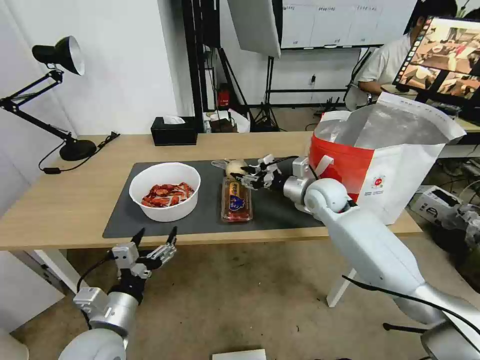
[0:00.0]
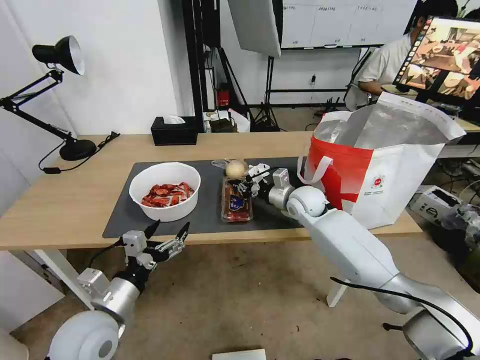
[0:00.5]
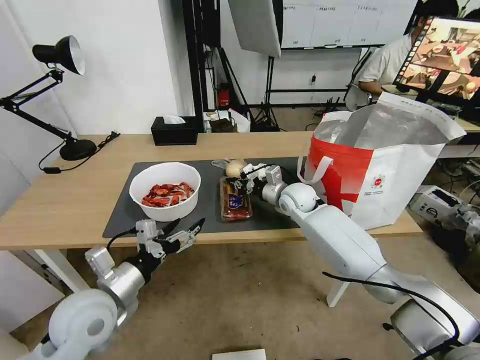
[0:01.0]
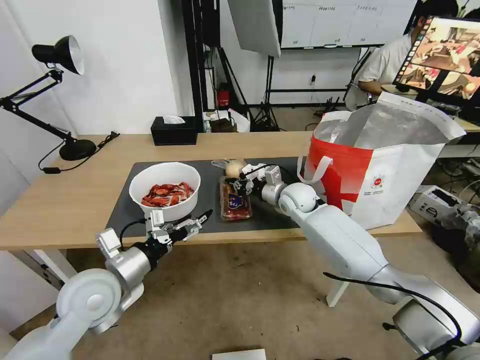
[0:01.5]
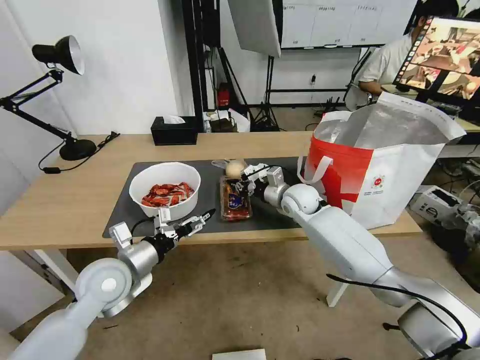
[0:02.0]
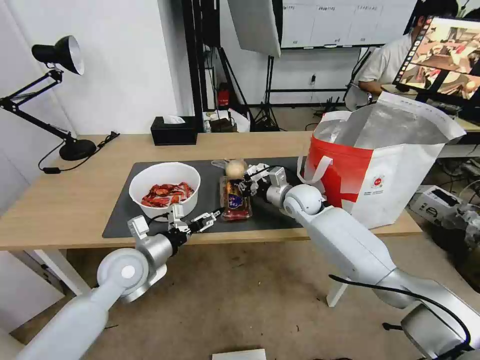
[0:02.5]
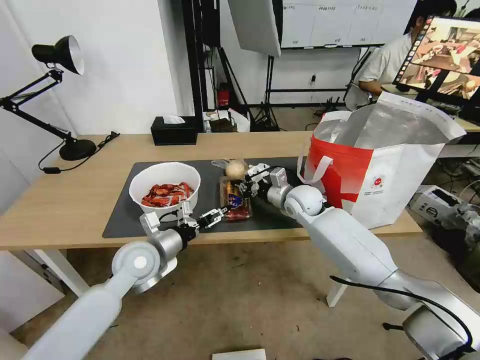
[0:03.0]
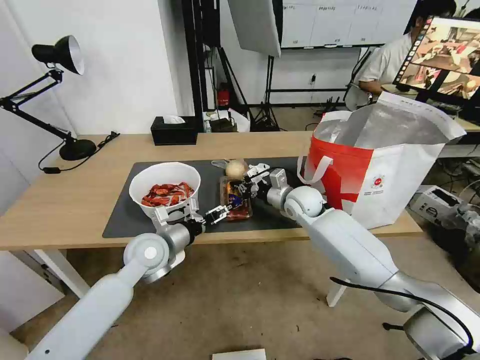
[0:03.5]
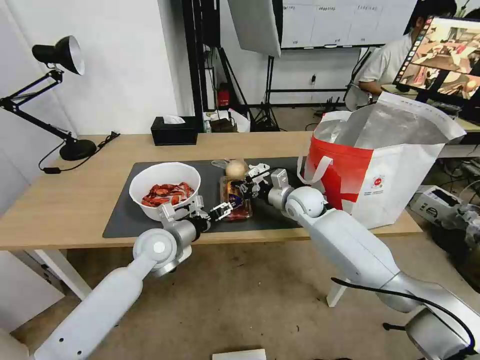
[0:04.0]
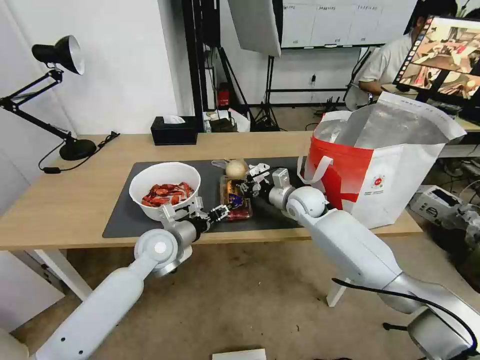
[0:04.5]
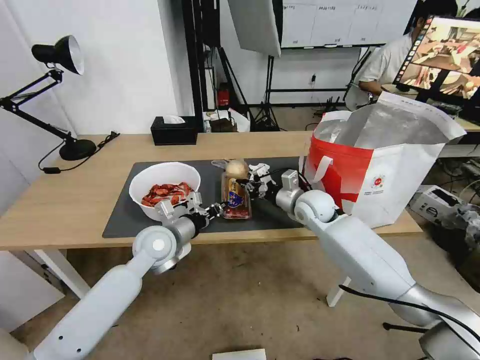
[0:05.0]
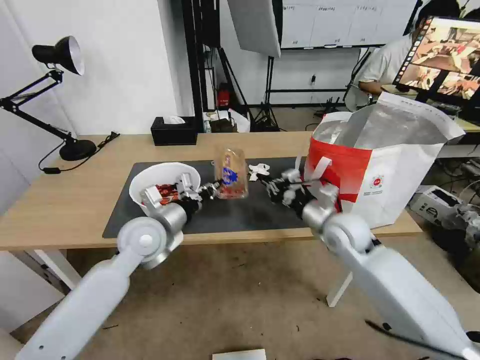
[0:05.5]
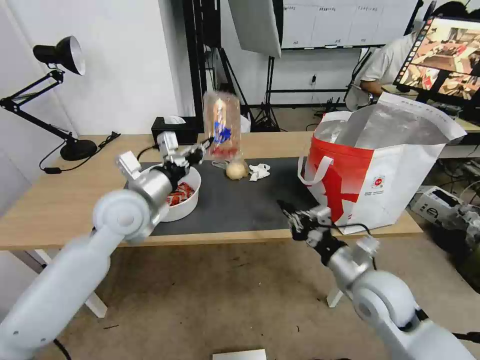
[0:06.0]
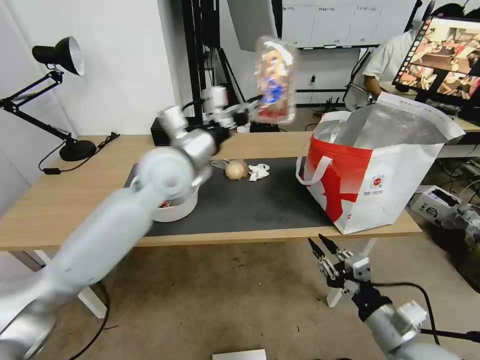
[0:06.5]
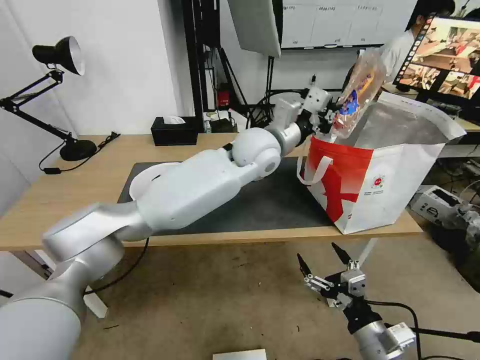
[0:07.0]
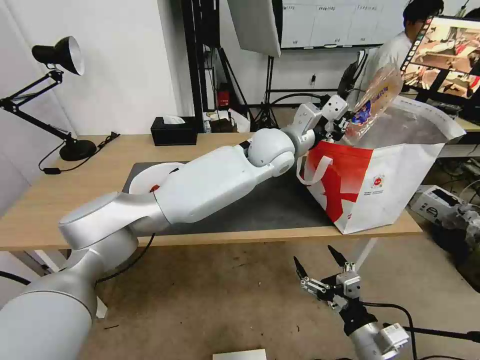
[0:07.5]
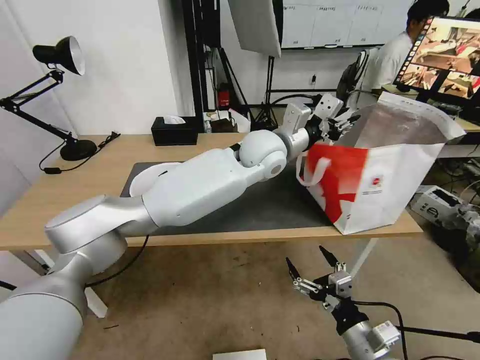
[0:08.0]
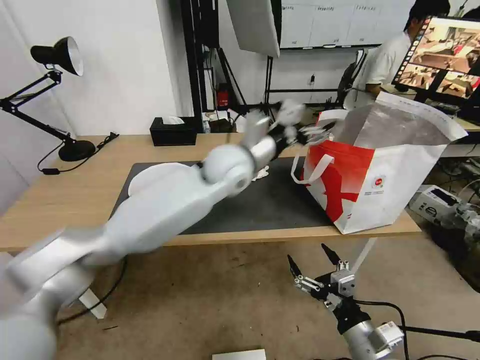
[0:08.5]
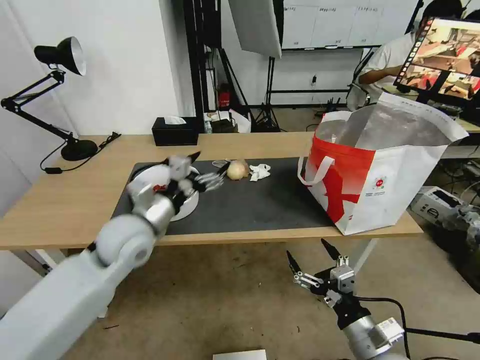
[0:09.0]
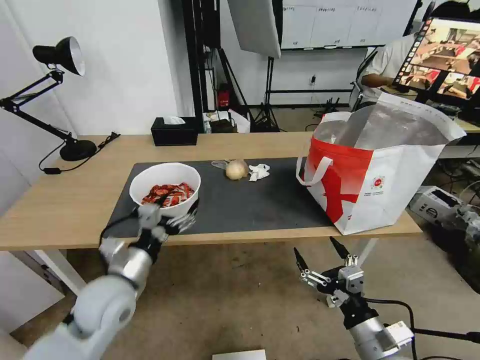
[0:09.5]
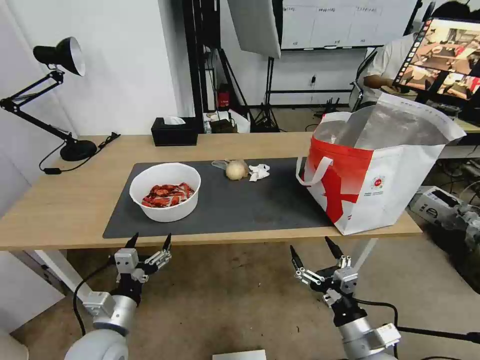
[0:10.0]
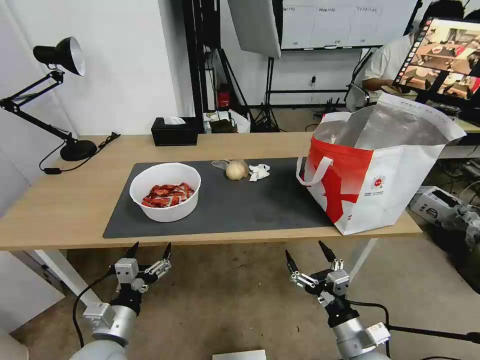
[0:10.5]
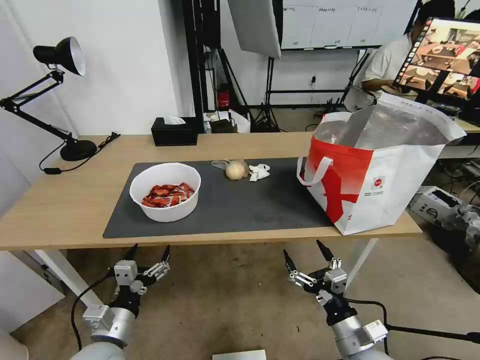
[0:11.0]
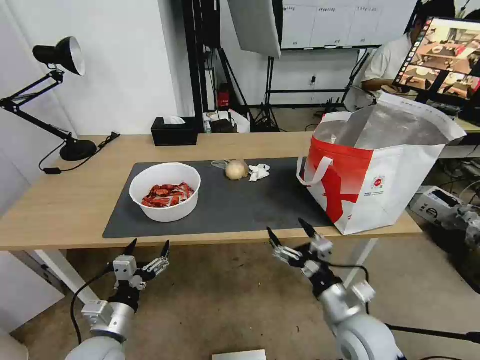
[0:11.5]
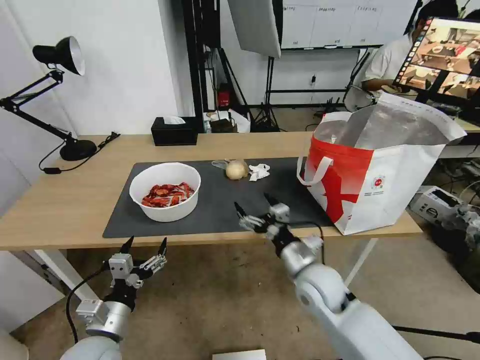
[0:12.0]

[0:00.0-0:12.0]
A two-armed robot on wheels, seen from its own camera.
Task of the whole recording: Pick up the trash from the table and place it into the takeout bag.
0:00.0 to 0:02.0: The right gripper moves roughly 10 cm, and closes its fingers. The left gripper is displaced forward by some 10 cm.
0:02.0 to 0:04.0: The left gripper goes approximately 10 cm forward and to the right.
0:04.0 to 0:06.0: The right gripper moves backward, approximately 25 cm. The left gripper shifts some 15 cm upward, and closes up.
0:06.0 to 0:08.0: The left gripper is displaced to the right and forward by about 30 cm, and opens its fingers, while the right gripper is displaced backward and downward by about 15 cm, and opens up.
0:08.0 to 0:10.0: The left gripper goes some 50 cm to the left, backward and downward, and opens its fingers.
0:10.0 to 0:12.0: The right gripper moves forward and to the left, approximately 20 cm.

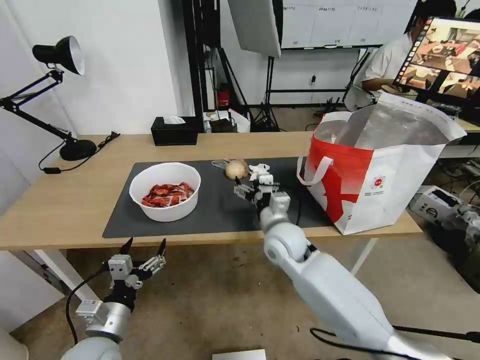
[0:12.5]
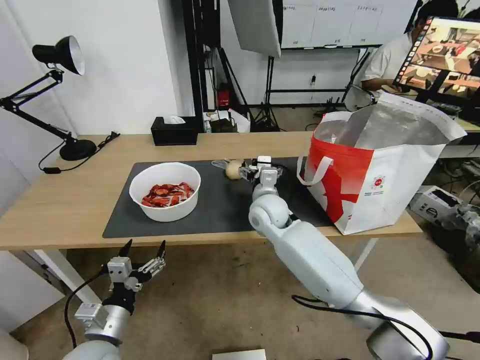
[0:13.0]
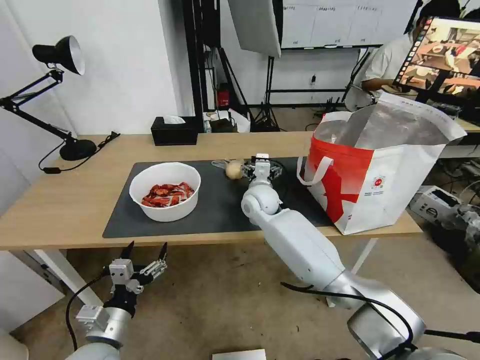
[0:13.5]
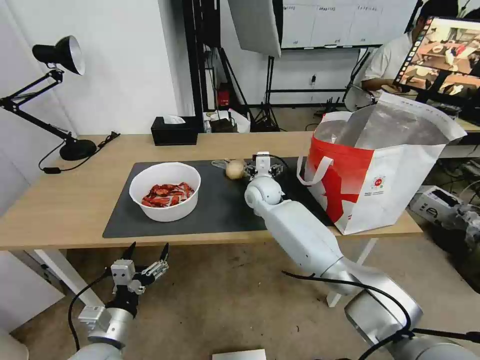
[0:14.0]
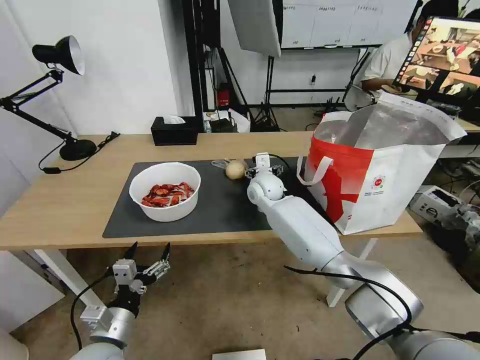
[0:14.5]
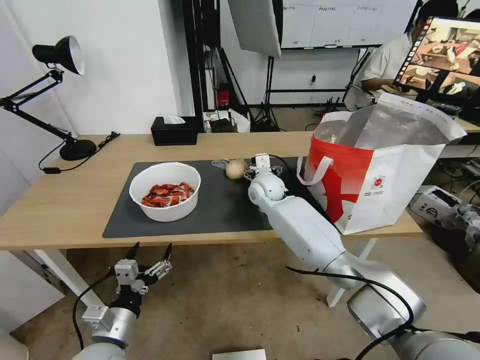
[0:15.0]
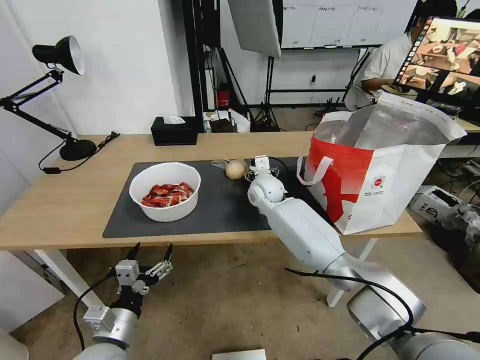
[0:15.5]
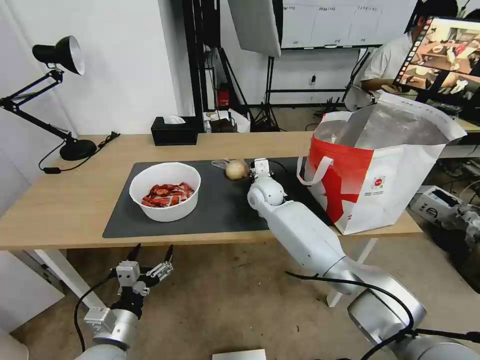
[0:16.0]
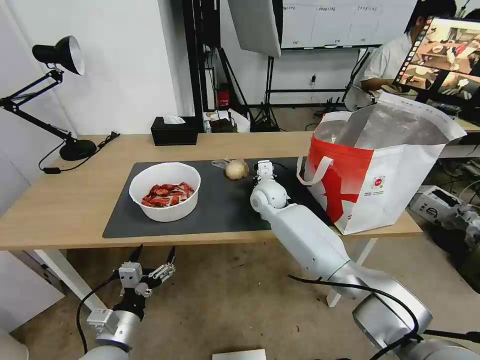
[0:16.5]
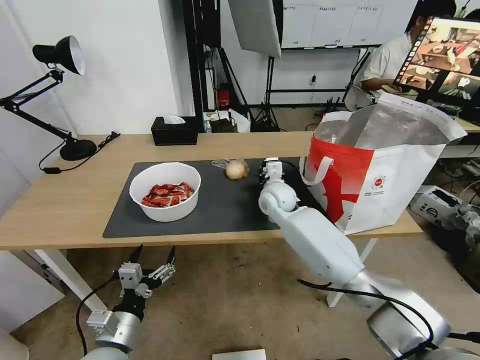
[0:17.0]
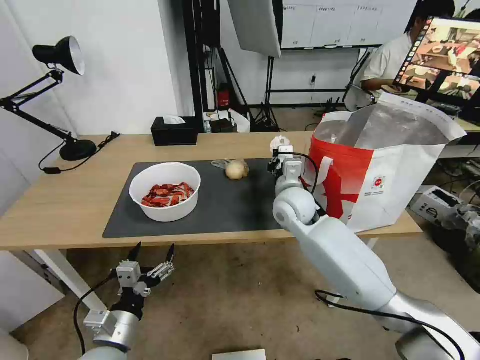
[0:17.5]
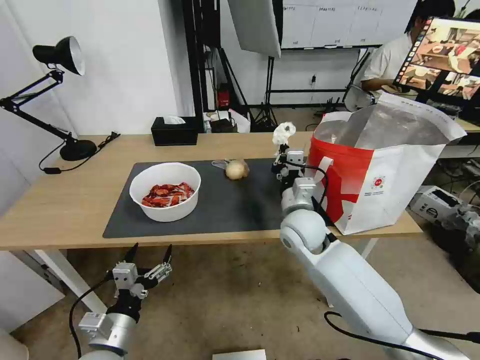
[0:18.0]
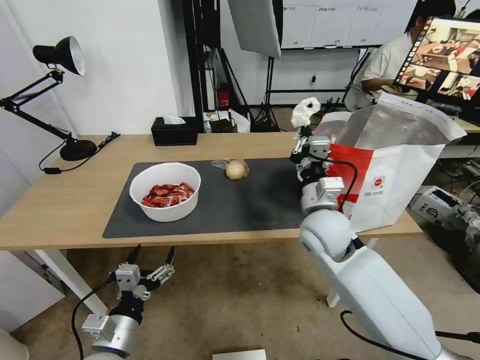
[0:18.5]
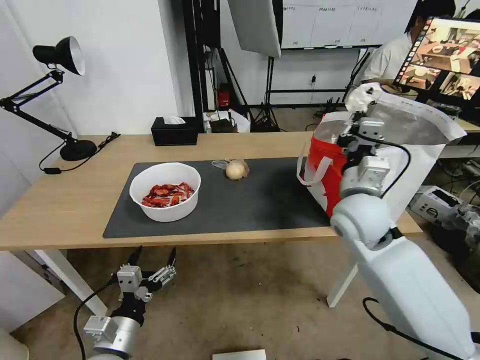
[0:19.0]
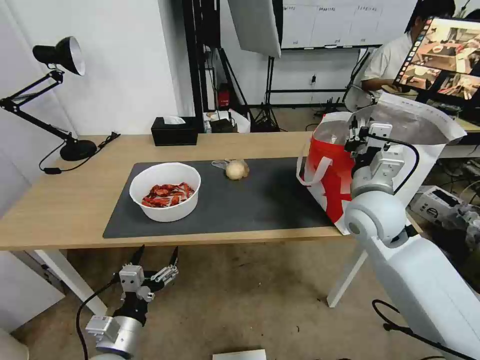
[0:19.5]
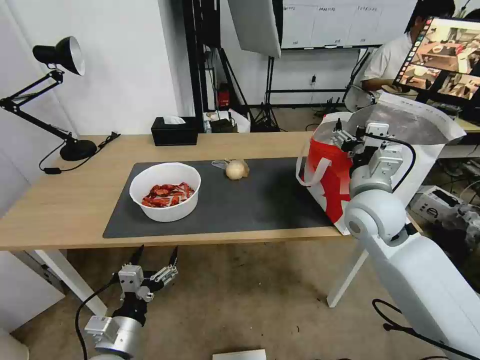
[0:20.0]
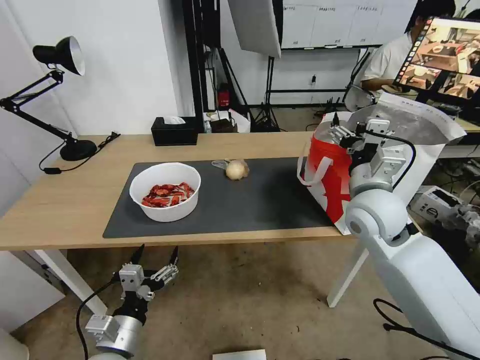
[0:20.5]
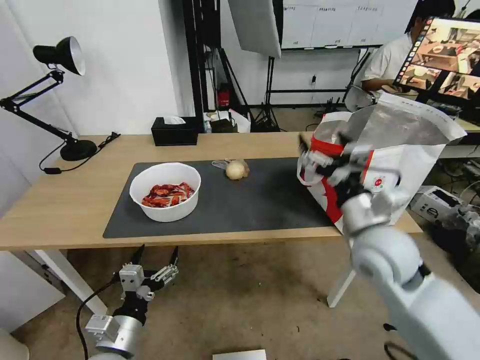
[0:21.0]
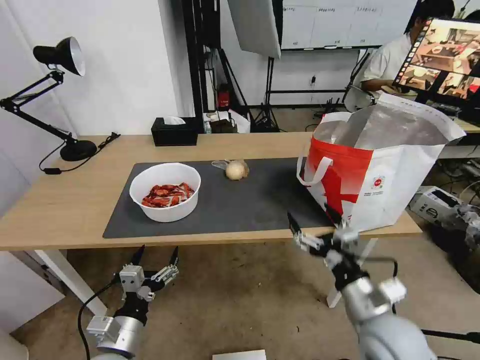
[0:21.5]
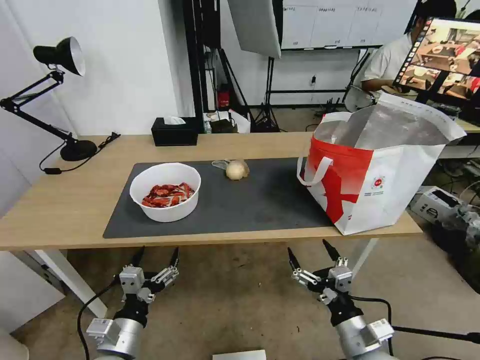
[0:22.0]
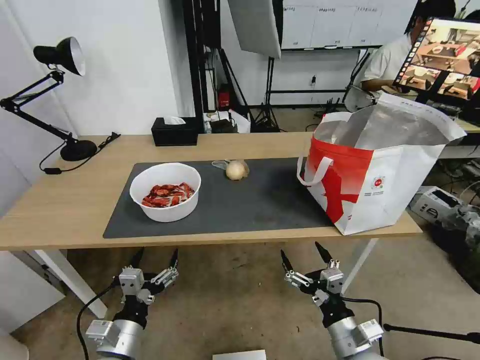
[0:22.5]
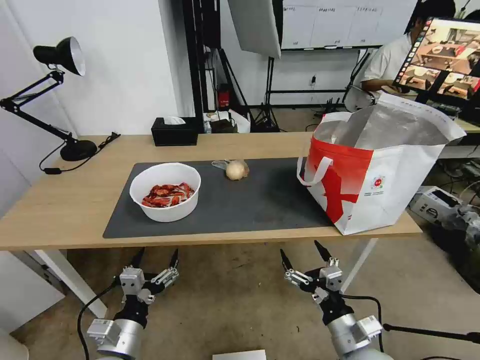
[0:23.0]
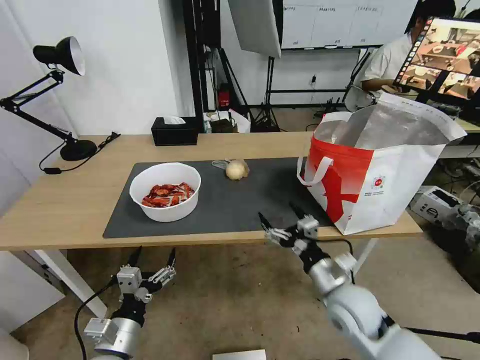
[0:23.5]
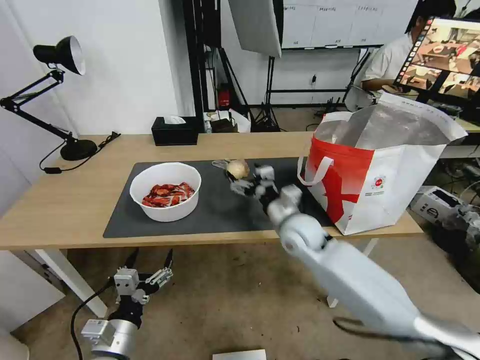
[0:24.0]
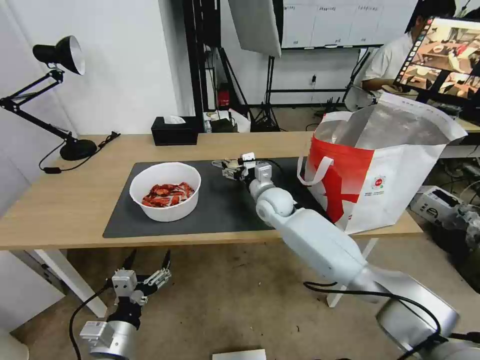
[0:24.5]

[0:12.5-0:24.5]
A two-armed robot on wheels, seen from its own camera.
Task of the whole recording: Pick up the trash from the table and place it into the takeout bag.
0:12.5 to 0:14.5: The right gripper goes some 15 cm forward.
0:14.5 to 0:16.5: The right gripper closes its fingers.
0:16.5 to 0:18.5: The right gripper shifts roughly 20 cm backward, to the right and upward.
0:18.5 to 0:20.5: The right gripper moves to the right and upward, roughly 10 cm, and opens its fingers.
0:20.5 to 0:22.5: The right gripper moves backward and downward, some 30 cm.
0:22.5 to 0:24.5: The right gripper goes some 35 cm forward.

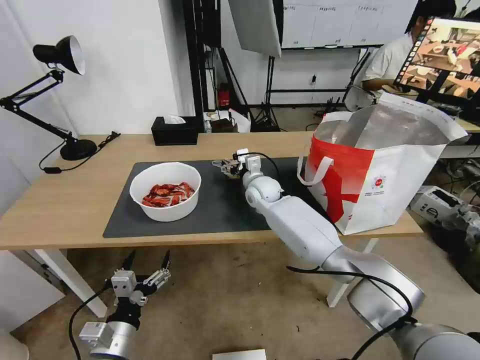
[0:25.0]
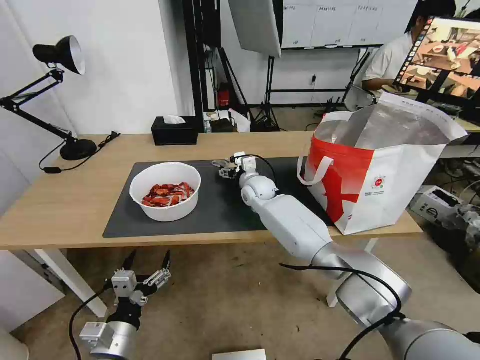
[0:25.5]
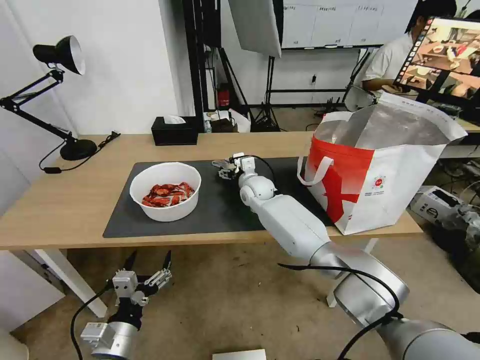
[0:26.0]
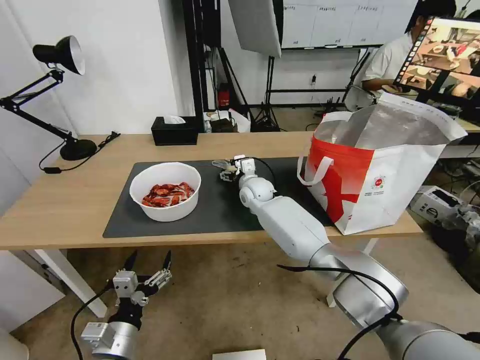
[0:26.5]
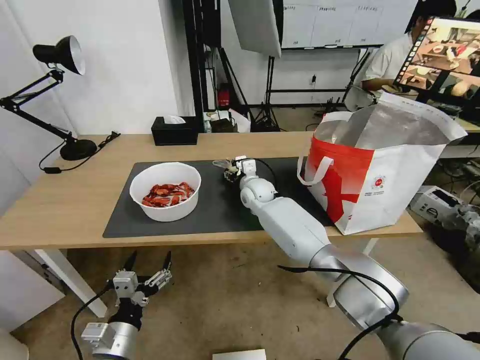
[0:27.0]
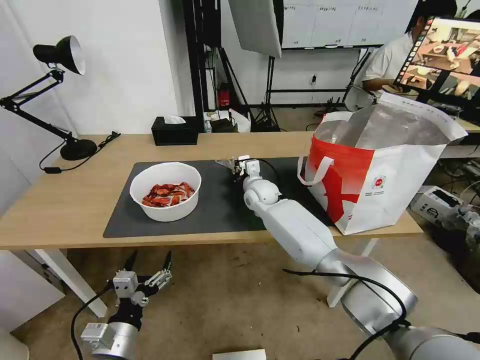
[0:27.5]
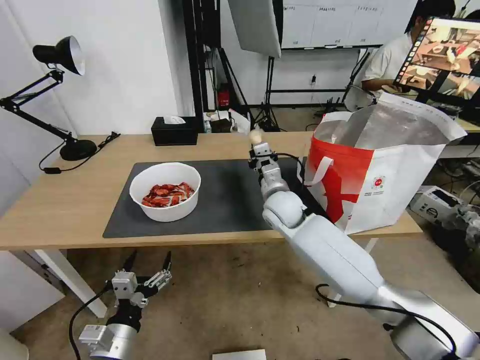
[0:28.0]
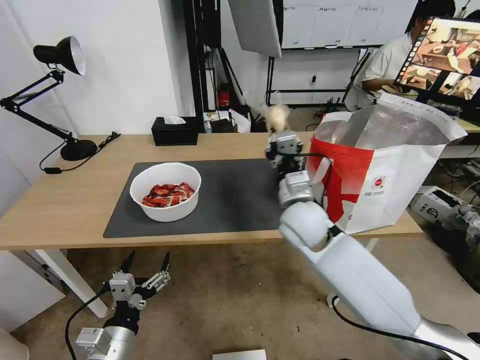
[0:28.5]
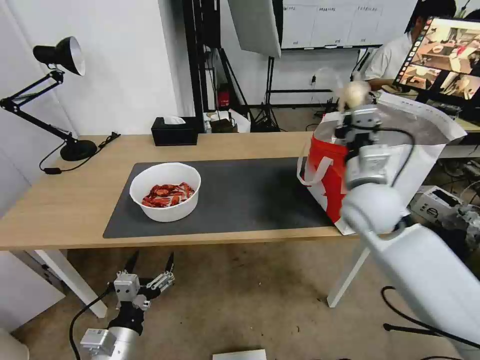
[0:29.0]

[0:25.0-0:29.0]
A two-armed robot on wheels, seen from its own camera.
Task of the whole recording: Pick up the trash from the table and place it into the takeout bag.
0:25.0 to 0:27.0: The grippers move only a little.
0:27.0 to 0:29.0: The right gripper heads backward, to the right and upward, covering about 30 cm, and closes up.
